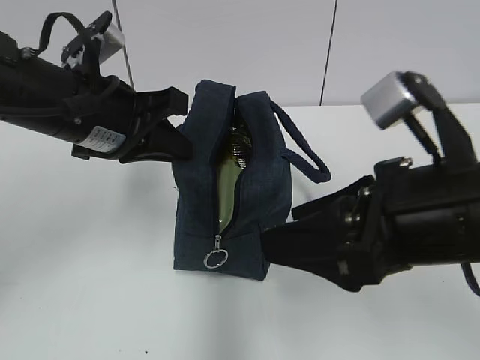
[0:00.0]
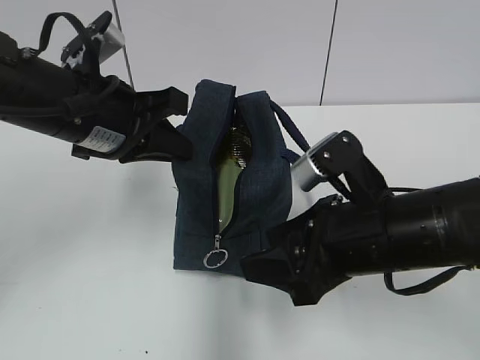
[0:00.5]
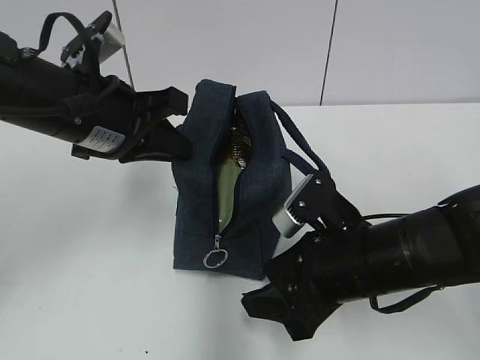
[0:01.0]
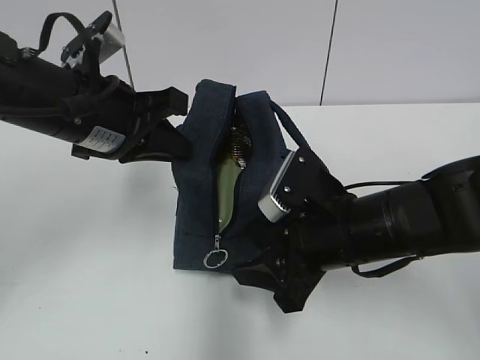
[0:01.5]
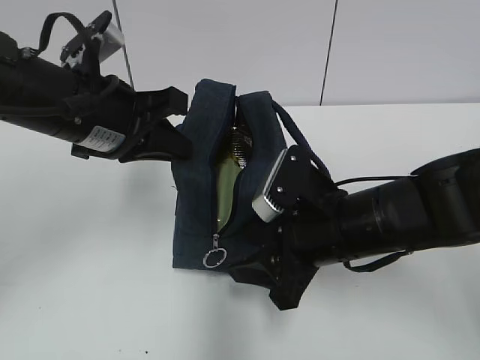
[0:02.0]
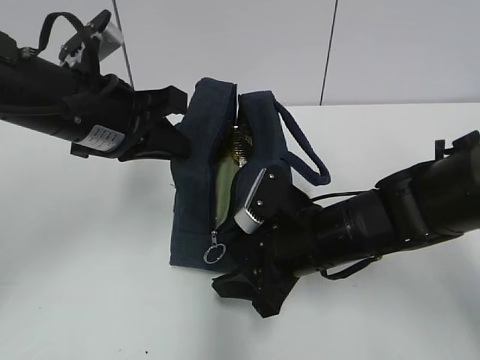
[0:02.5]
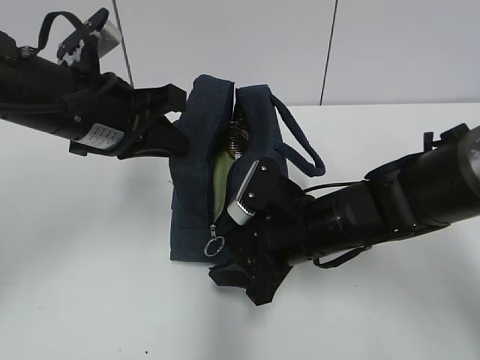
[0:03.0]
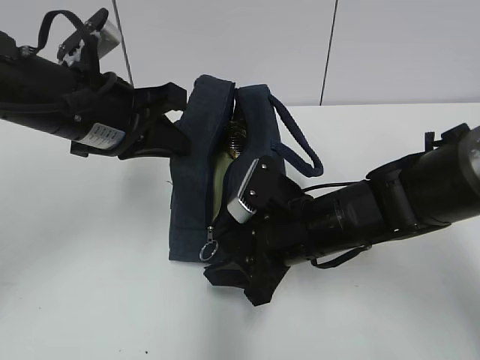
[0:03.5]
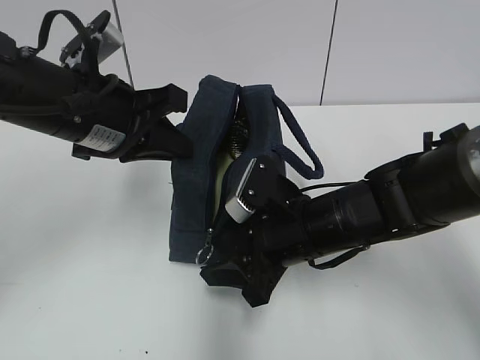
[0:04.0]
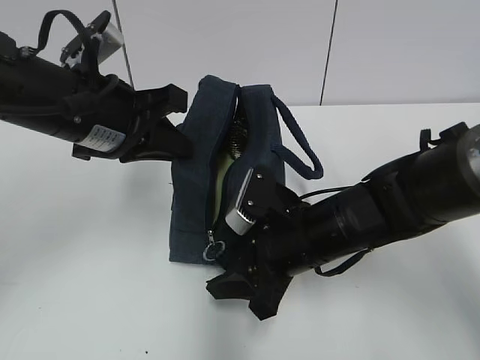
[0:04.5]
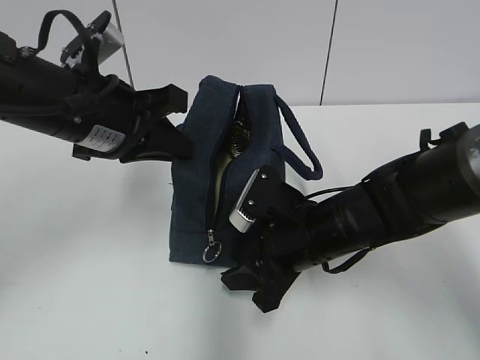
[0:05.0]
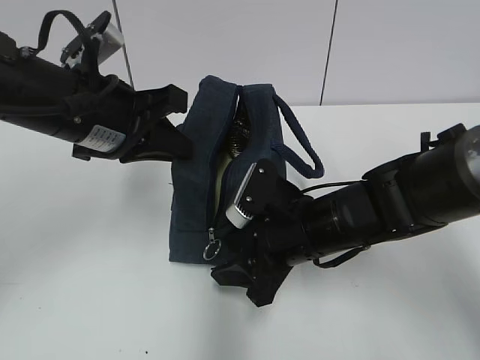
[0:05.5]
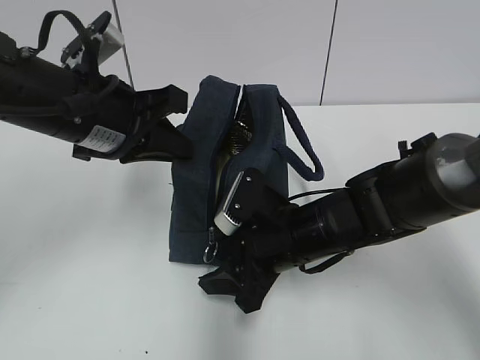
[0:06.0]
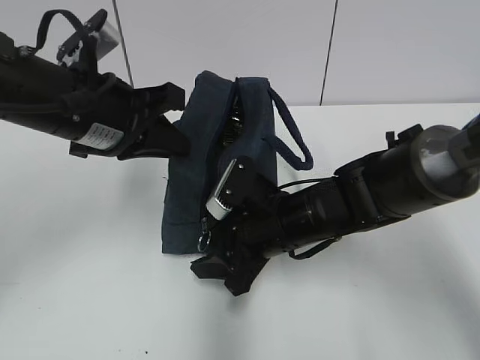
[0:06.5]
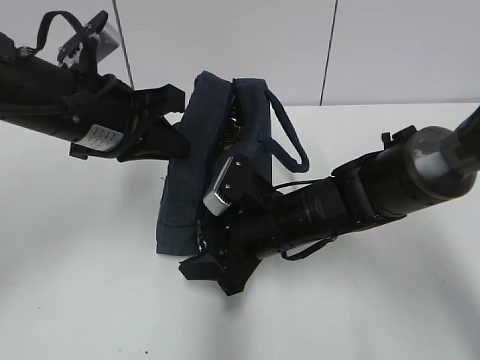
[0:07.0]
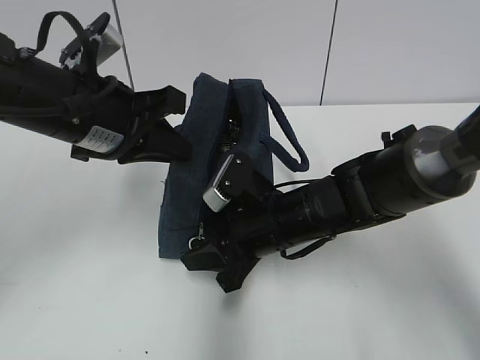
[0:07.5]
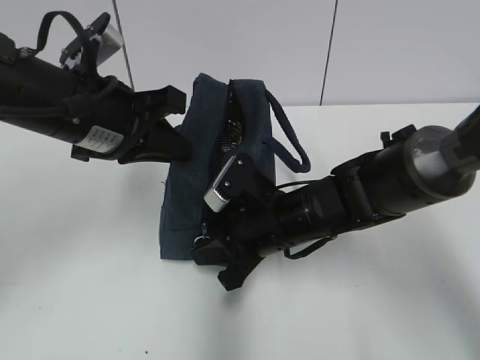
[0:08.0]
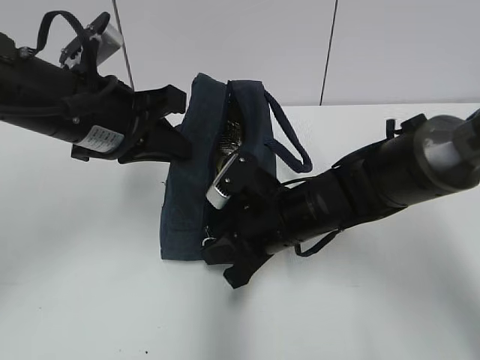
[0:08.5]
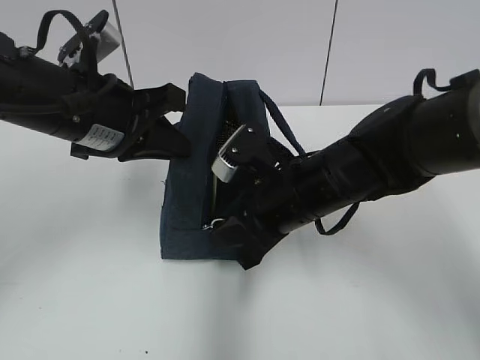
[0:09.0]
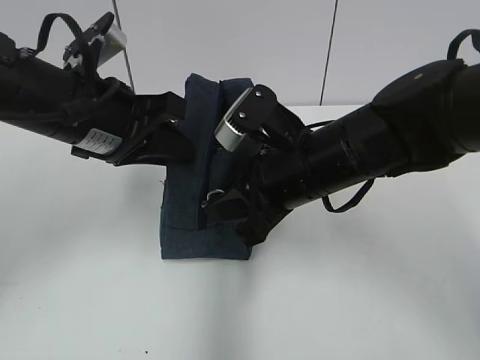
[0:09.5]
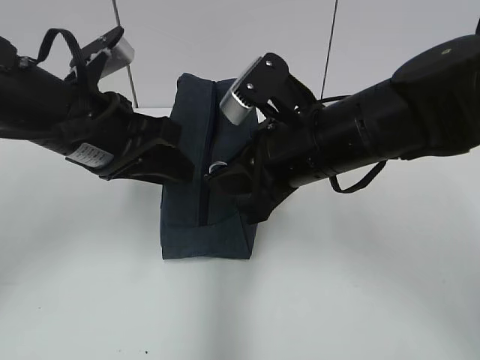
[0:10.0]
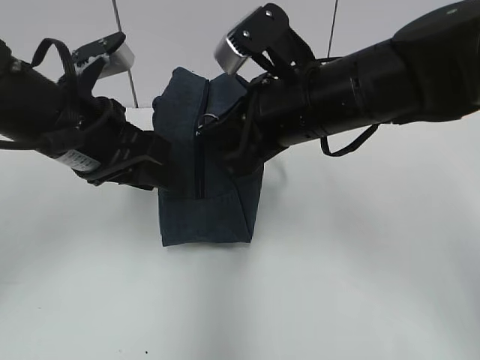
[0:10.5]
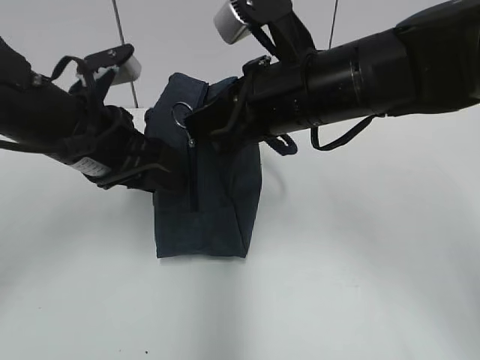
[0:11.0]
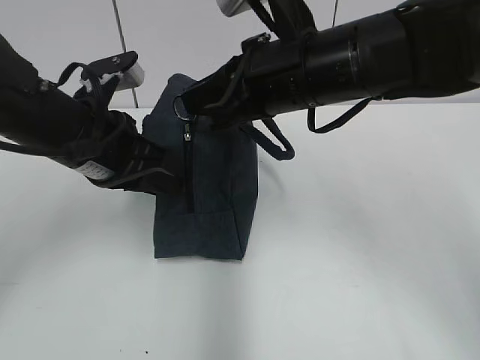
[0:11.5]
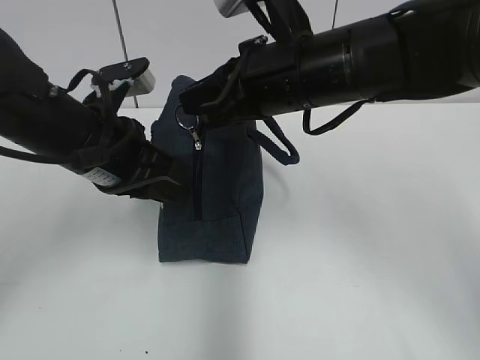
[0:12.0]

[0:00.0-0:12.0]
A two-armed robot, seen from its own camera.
0:00.0 to 0:02.0: The right gripper shifts some 15 cm downward and forward.
0:02.0 to 0:04.0: The grippers move only a little.
0:04.0 to 0:06.0: The grippers move only a little.
0:06.0 to 0:08.0: The right gripper closes up.
0:08.0 to 0:10.0: The left gripper opens its fingers, while the right gripper heads upward, covering approximately 10 cm.
0:10.0 to 0:12.0: The right gripper goes roughly 5 cm upward.

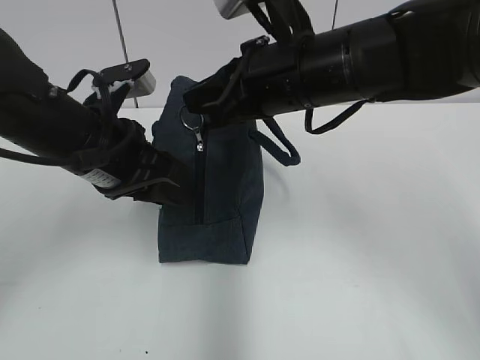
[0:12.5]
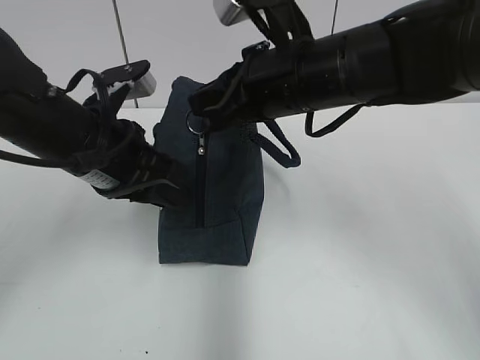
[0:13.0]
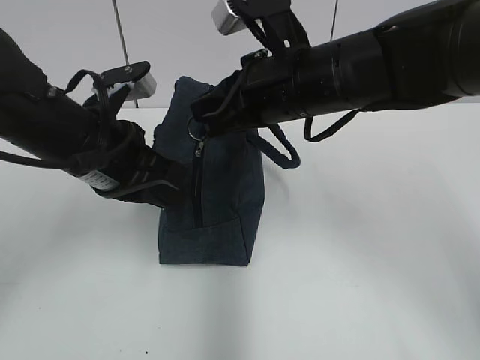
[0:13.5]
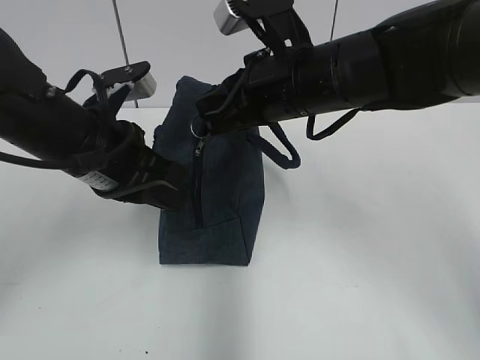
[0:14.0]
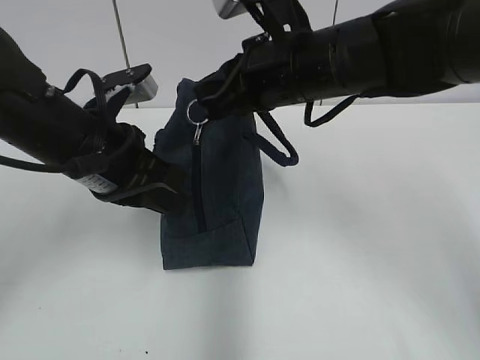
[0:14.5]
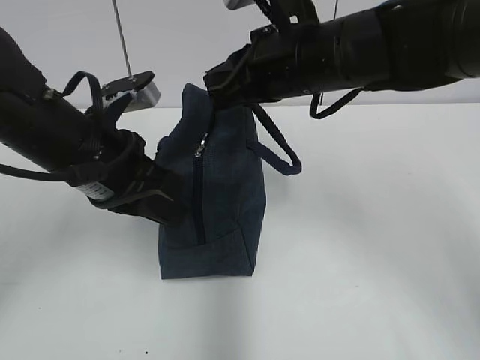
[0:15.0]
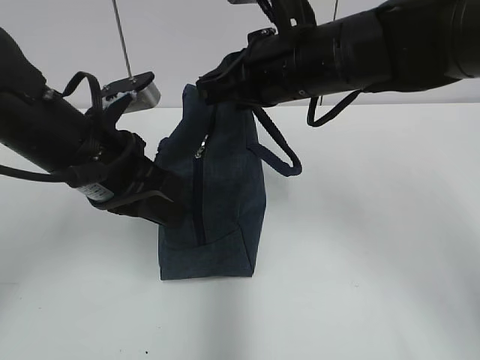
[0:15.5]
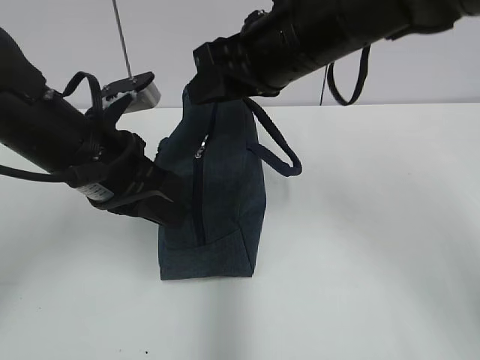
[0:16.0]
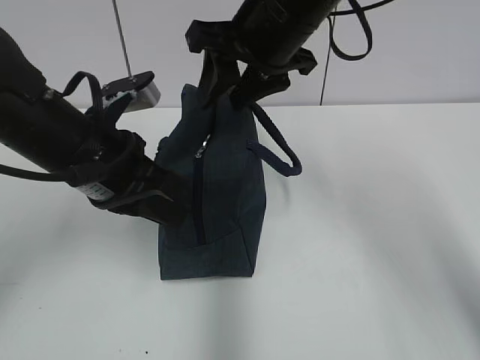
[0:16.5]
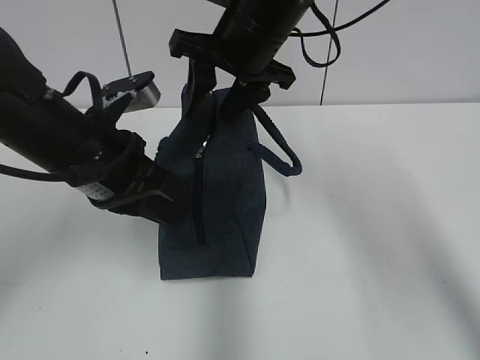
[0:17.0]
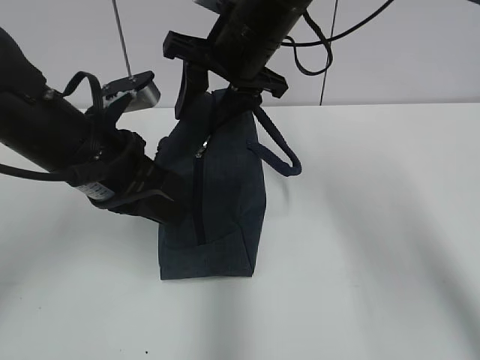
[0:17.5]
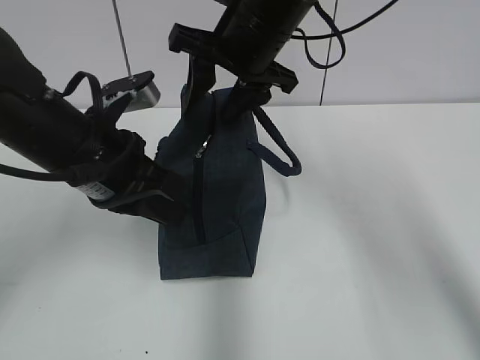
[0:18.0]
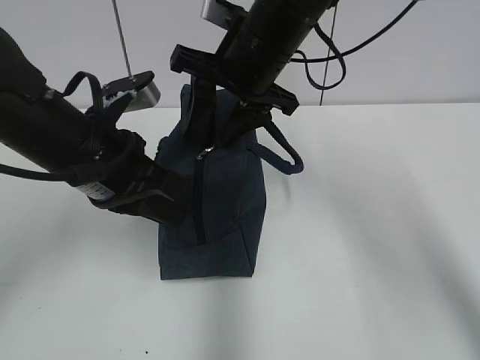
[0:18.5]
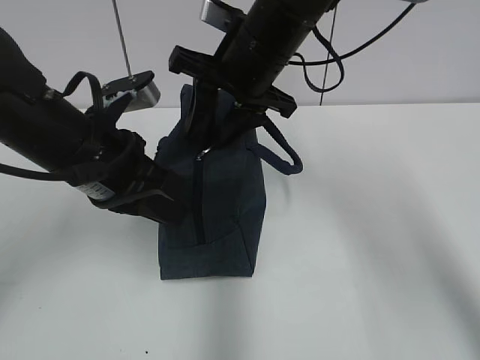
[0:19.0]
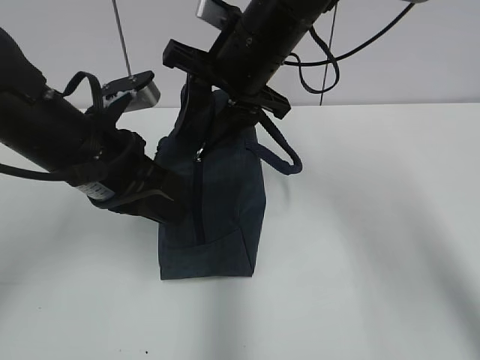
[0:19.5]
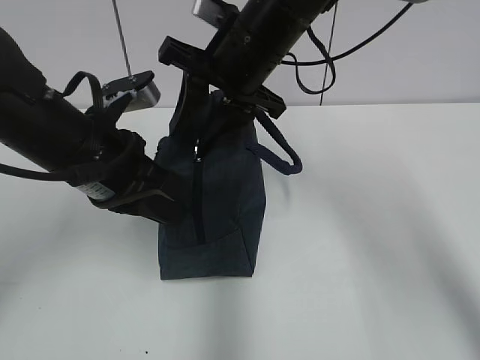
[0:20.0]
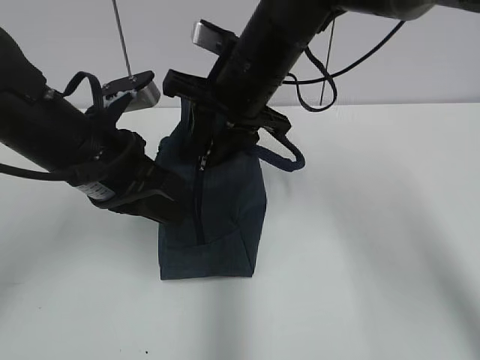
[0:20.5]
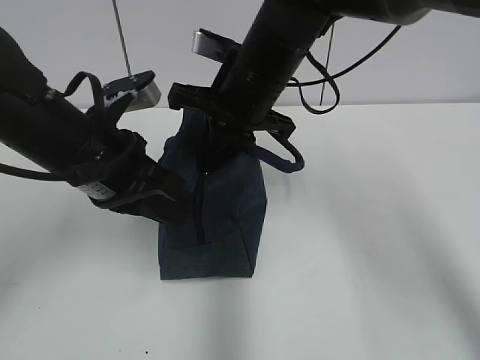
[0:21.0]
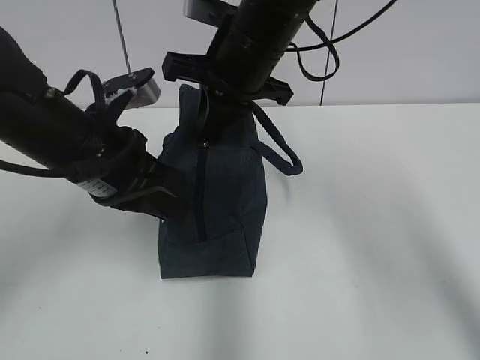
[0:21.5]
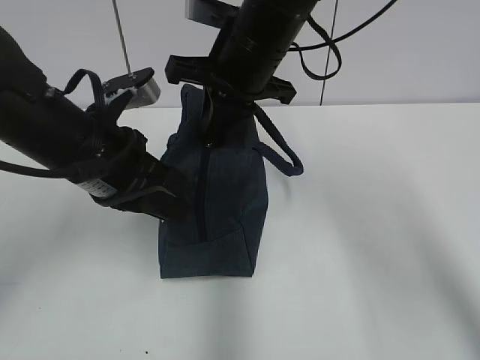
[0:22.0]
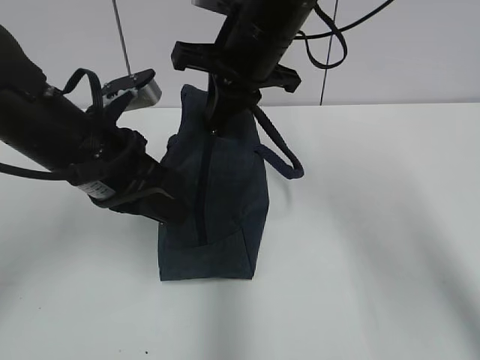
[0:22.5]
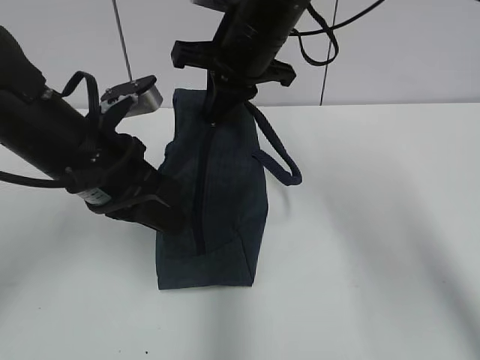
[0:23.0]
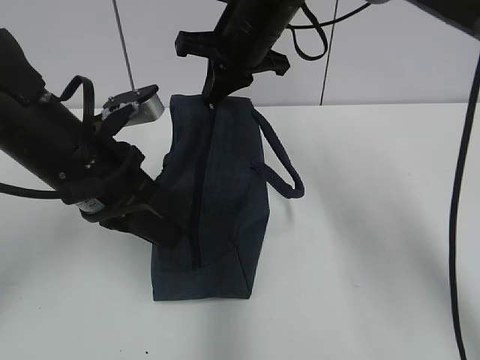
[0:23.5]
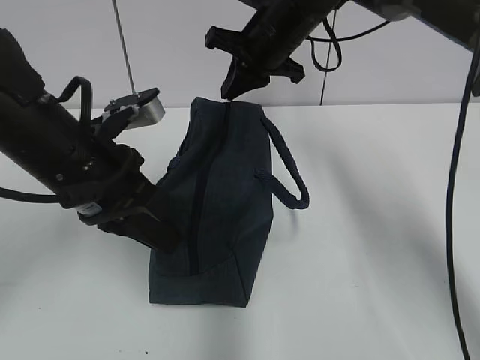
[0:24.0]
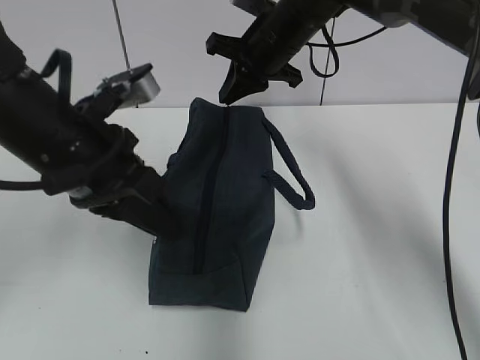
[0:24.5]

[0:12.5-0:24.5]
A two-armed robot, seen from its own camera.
0:12.5 to 0:14.5: The left gripper closes its fingers.
0:14.5 to 0:16.5: The right gripper changes place by about 5 cm, and opens its fingers.
0:16.5 to 0:18.5: The grippers move only a little.
0:18.5 to 0:20.5: The grippers move only a little.
0:20.5 to 0:22.5: The right gripper closes up.
0:22.5 to 0:24.5: The right gripper heads forward, covering some 10 cm.

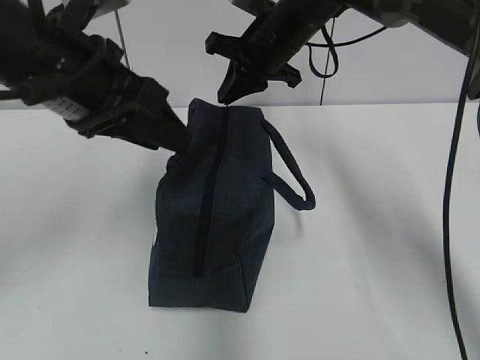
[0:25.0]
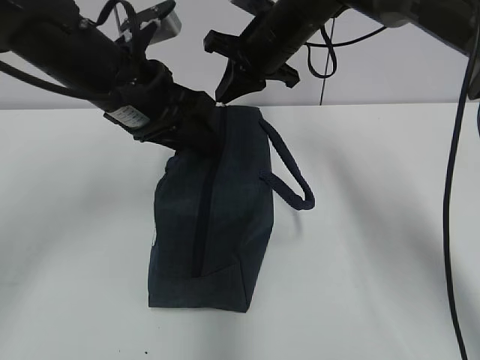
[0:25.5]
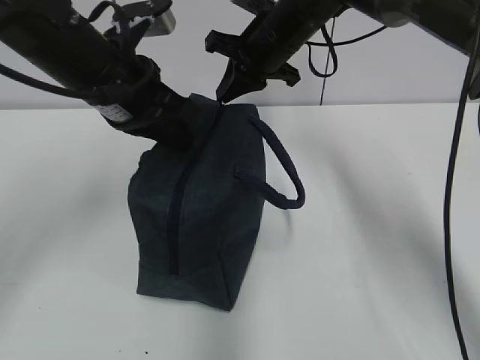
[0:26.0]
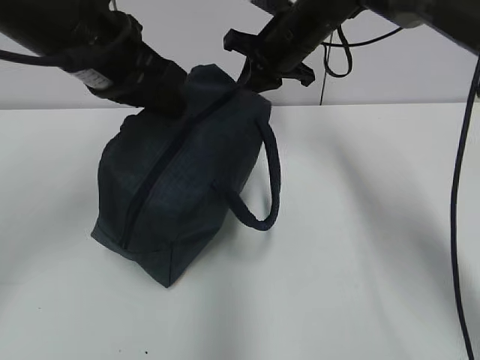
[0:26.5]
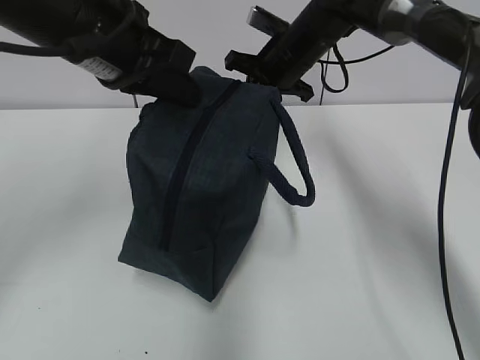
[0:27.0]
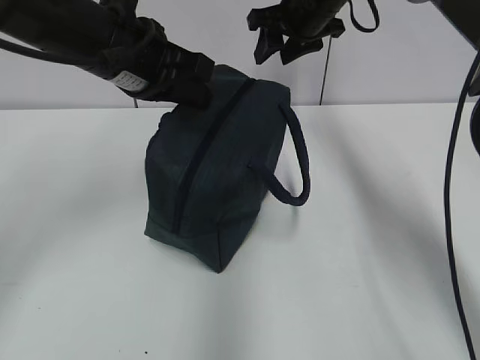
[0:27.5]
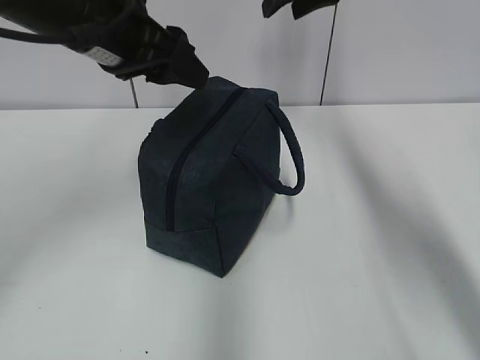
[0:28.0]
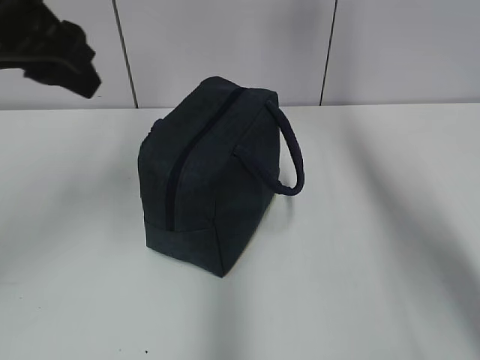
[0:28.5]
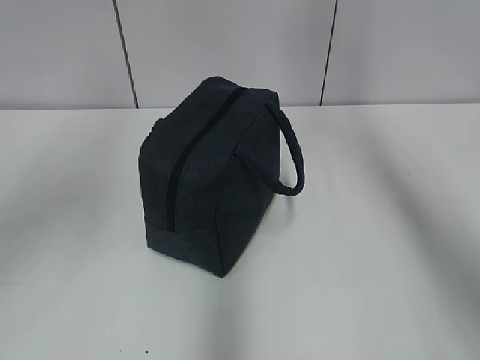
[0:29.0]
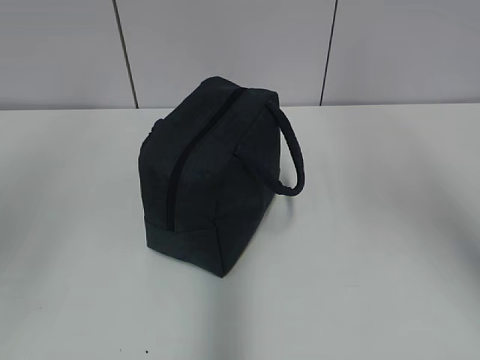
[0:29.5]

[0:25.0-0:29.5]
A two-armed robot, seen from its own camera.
0:25.0 to 0:27.0: The left gripper closes up.
0:27.0 to 0:29.5: The right gripper heads backward and upward, covering approximately 35 cm, and opens its fingers. Meanwhile the left gripper is displaced backward, to the left and upward by some 25 cm, and opens up.
